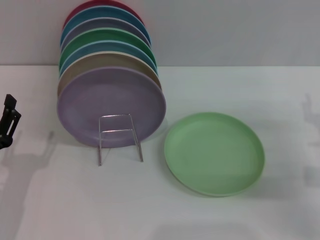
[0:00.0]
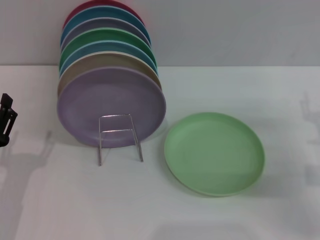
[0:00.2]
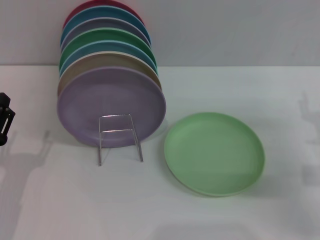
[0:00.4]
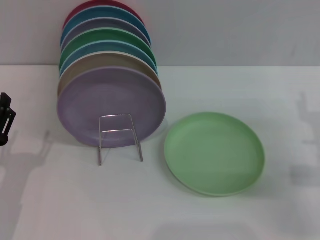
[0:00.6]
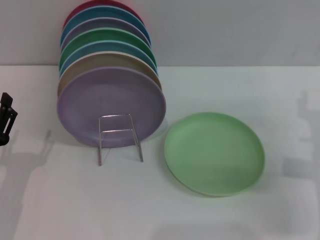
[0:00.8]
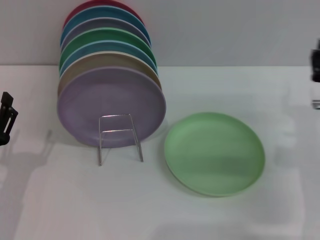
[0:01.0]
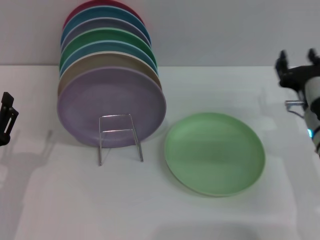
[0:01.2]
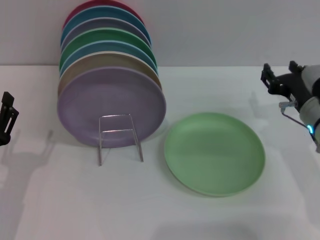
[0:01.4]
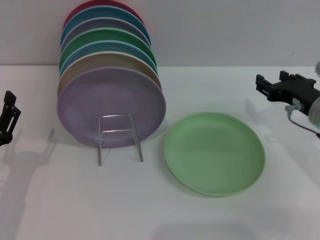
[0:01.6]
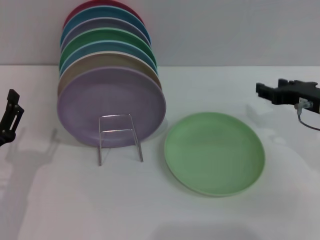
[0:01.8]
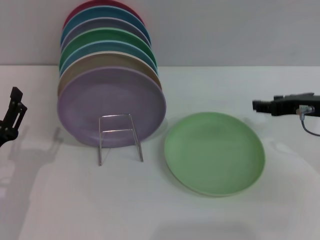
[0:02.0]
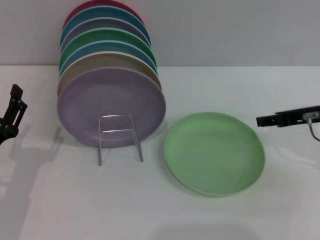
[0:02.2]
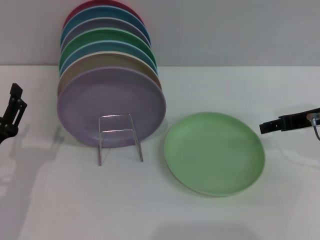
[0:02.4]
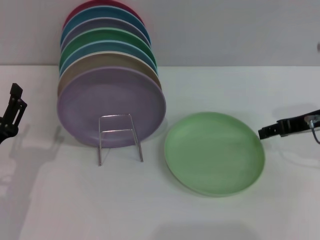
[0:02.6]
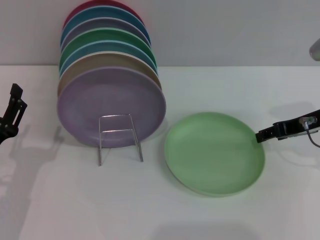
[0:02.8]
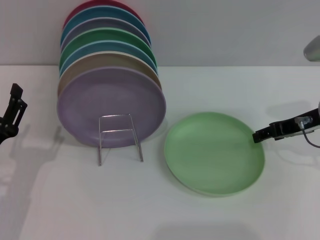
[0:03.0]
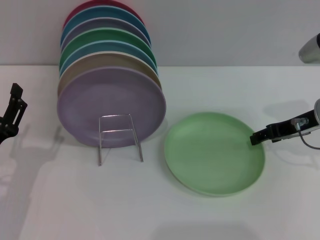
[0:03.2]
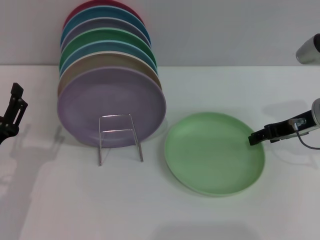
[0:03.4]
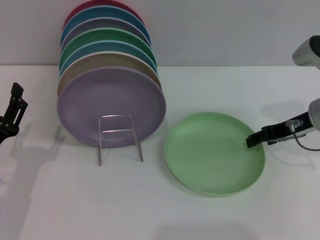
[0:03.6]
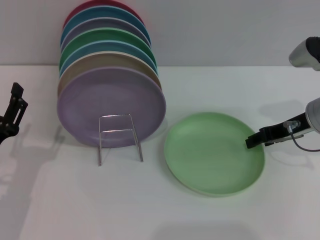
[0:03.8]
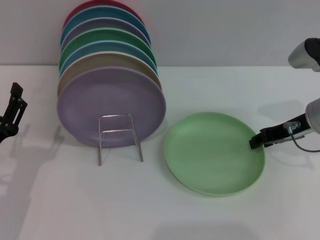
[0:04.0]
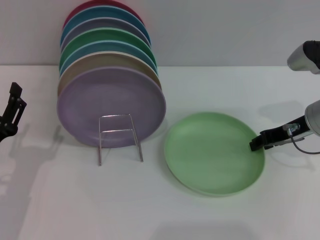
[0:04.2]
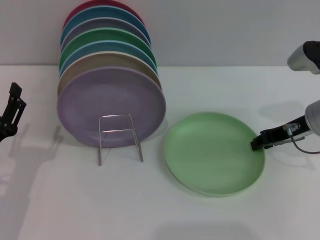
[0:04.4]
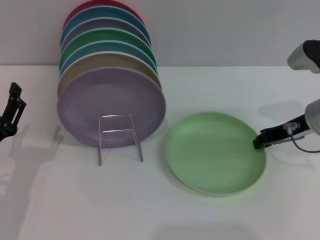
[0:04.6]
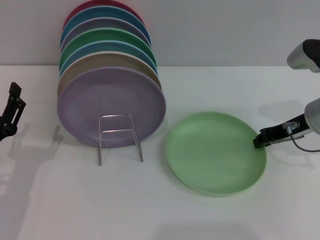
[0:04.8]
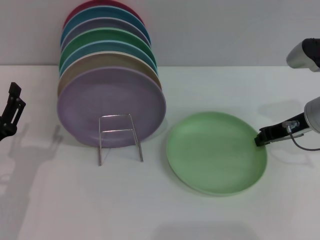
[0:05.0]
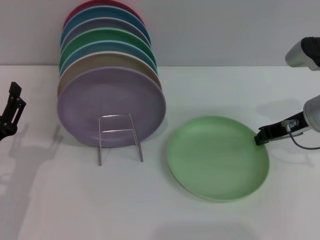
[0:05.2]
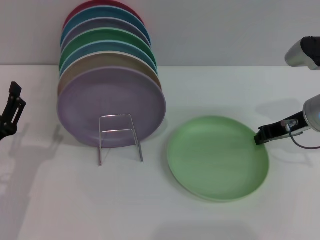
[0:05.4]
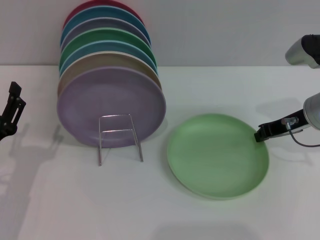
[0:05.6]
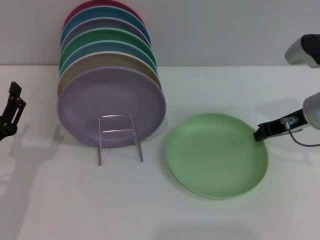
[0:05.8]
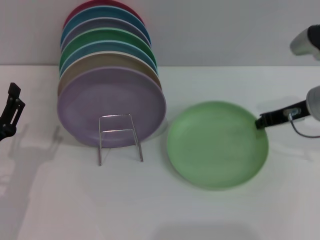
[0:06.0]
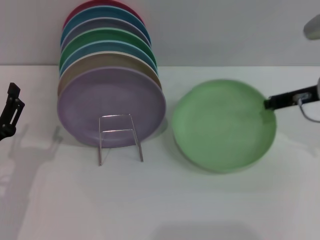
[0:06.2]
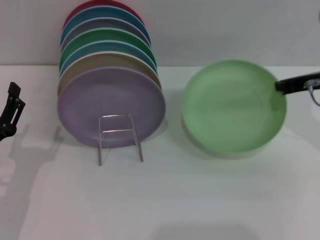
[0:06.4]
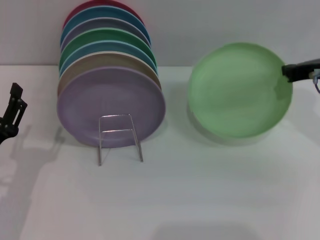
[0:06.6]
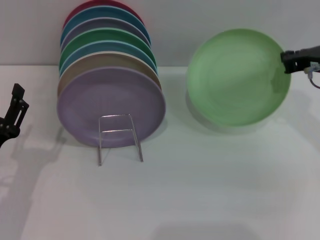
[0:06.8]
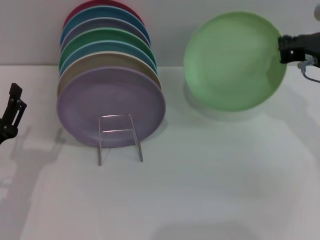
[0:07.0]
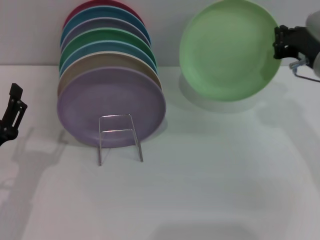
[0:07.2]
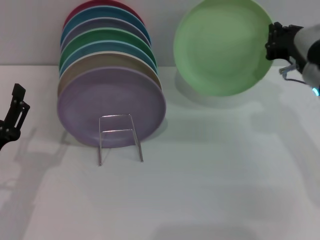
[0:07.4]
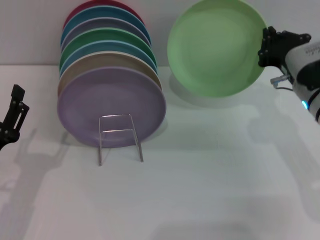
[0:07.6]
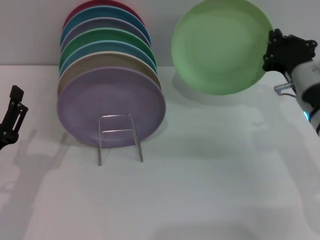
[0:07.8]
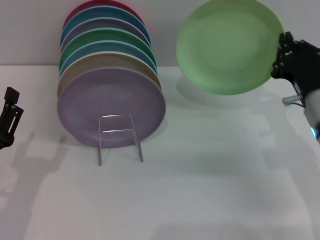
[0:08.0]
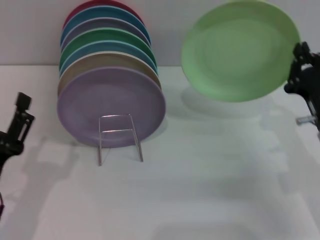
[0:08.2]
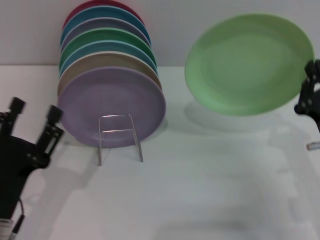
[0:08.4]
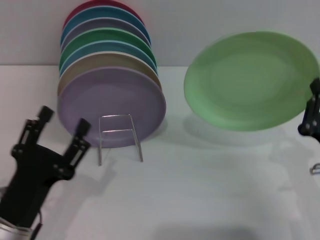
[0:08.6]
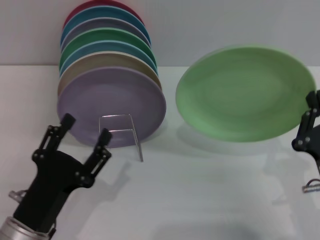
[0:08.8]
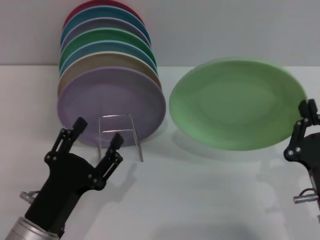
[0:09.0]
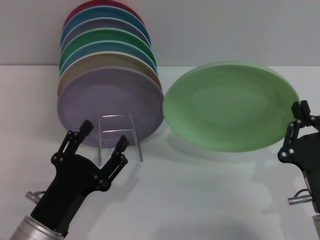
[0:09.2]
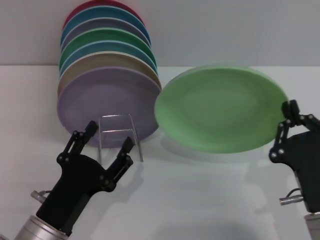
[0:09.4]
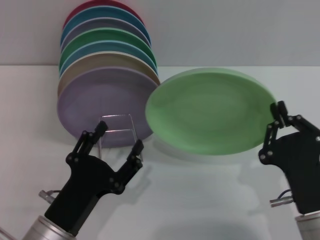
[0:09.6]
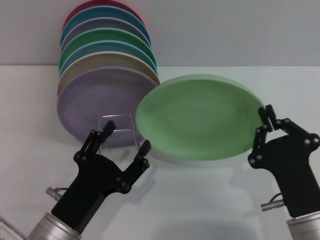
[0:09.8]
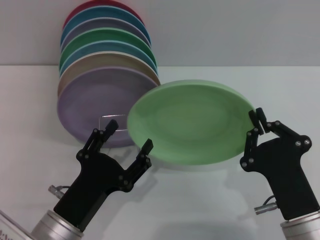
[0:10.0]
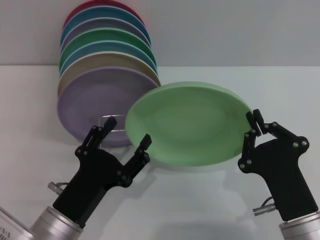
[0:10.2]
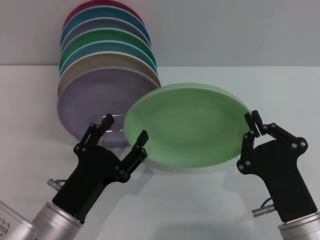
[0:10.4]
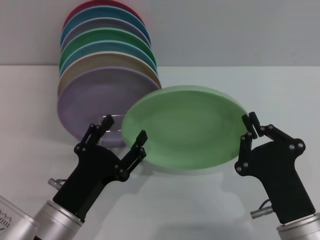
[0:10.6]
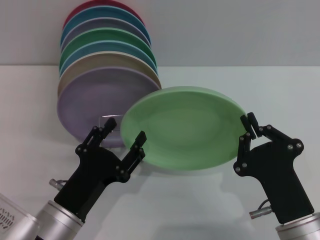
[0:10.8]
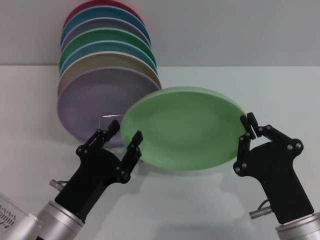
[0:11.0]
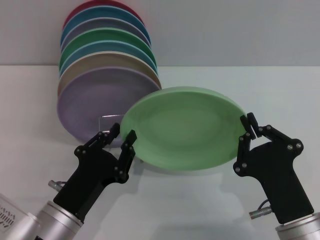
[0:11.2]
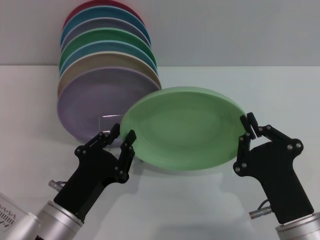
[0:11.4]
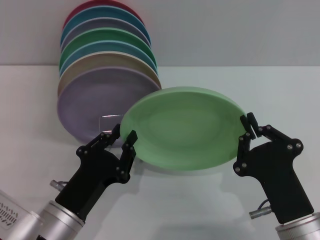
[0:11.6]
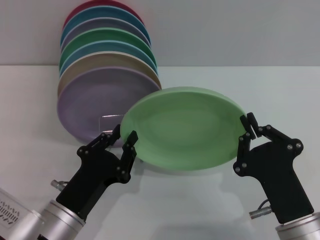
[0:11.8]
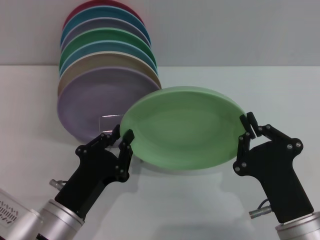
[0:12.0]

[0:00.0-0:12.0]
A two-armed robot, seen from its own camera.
Task of the whole recording: Grip the plate with one hand, pass it to the other, then set it on the shelf.
Step, 0:00.0 to 0:06.2: Pick up the plate with the right gripper.
0:00.0 to 0:01.6: The right gripper shifts by approximately 10 cm.
0:03.0 to 0:04.4: The grippers make only small movements.
0:04.4 to 0:06.0: The right gripper closes up.
0:07.6 to 0:09.0: The right gripper moves backward, roughly 20 cm. The left gripper shifts roughly 5 cm to the right.
0:10.4 to 0:12.0: The left gripper closes its fingers.

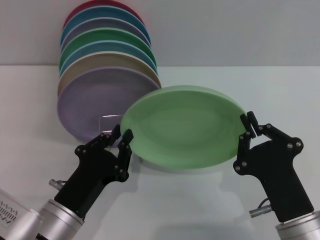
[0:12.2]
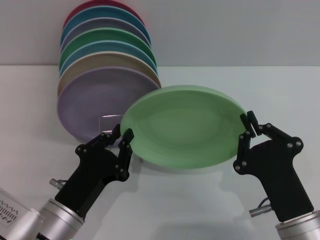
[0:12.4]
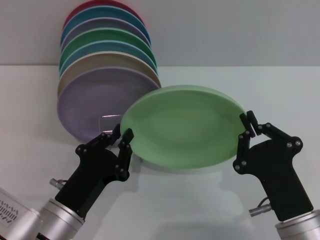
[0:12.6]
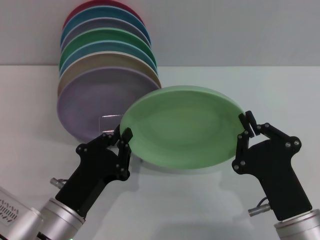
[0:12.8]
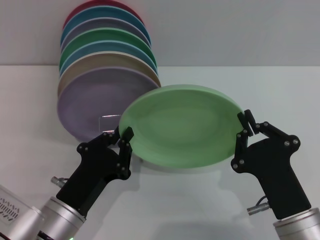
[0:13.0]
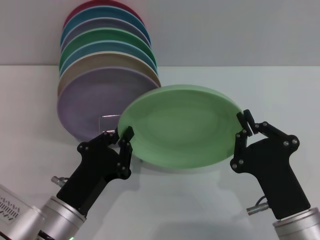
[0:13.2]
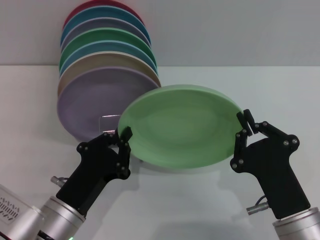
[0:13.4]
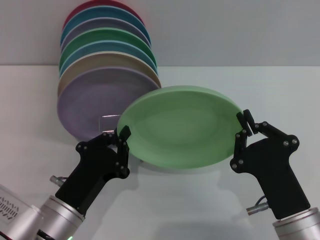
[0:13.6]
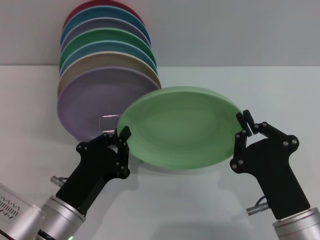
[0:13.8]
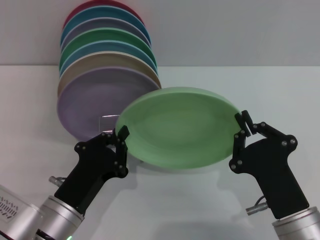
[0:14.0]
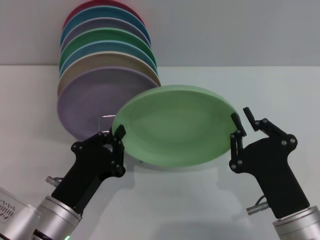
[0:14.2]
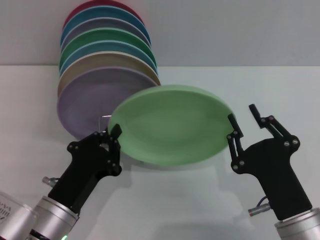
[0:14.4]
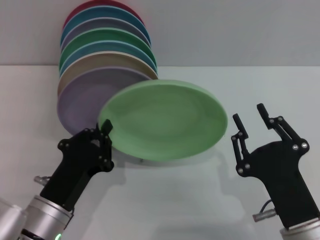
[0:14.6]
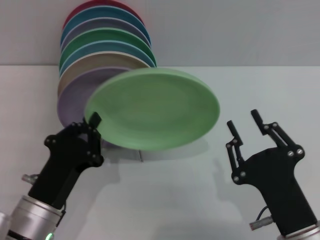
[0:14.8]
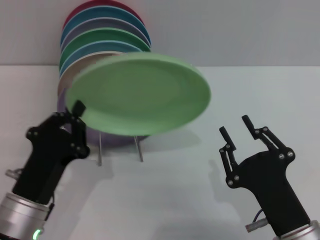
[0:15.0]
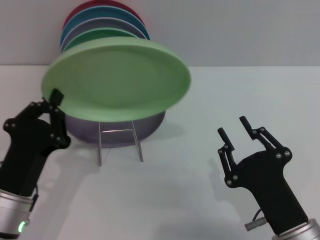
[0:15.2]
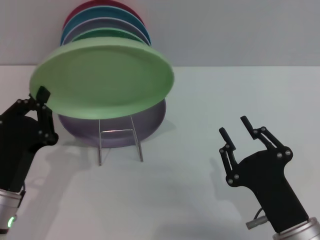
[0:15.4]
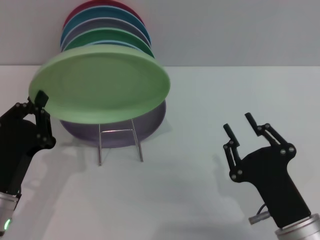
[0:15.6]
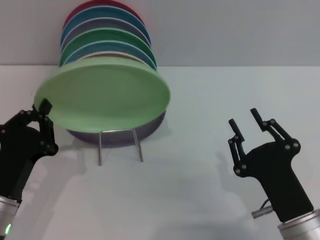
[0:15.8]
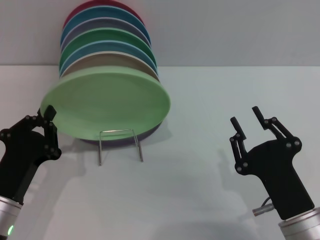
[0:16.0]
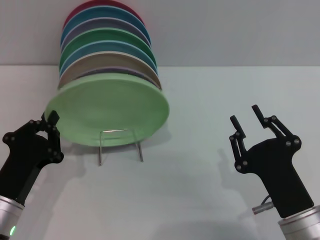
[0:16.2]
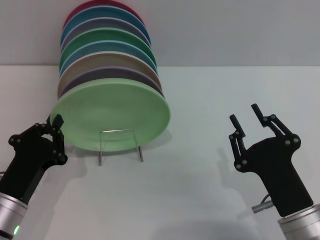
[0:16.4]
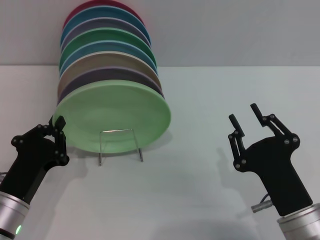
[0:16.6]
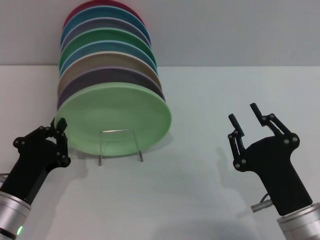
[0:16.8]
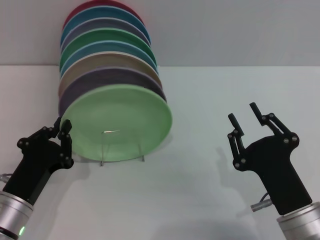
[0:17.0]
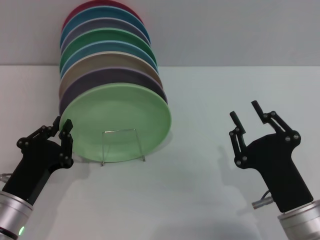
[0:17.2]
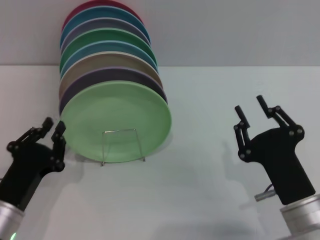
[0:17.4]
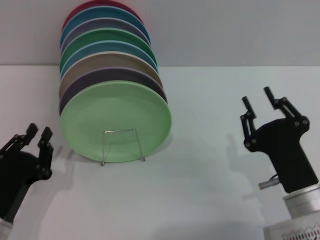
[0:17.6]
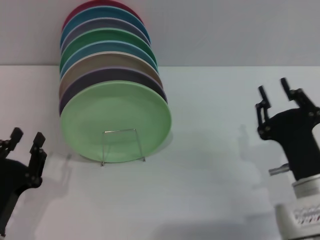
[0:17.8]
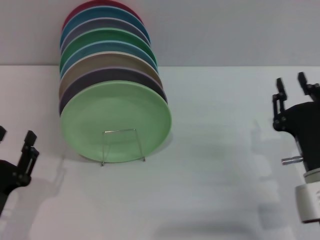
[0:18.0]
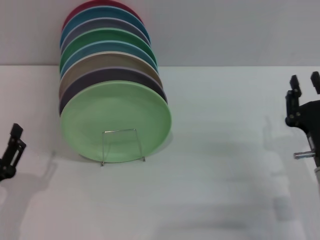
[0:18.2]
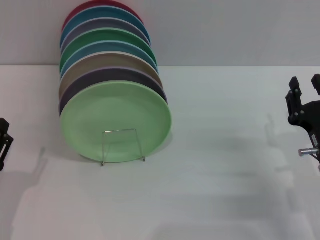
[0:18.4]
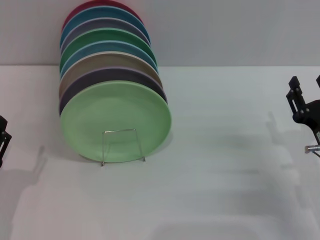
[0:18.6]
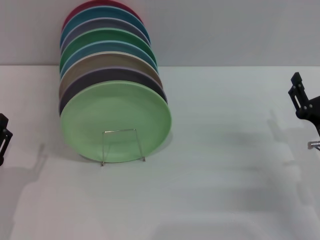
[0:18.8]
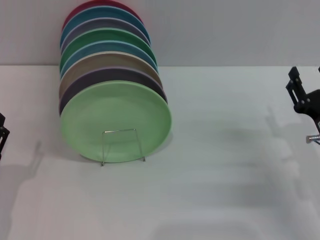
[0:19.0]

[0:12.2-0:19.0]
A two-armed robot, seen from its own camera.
Task of the whole recording: Grip the plate with one hand, pass it to the other, then set it on the shelf.
Step, 0:12.2 to 0:14.8: Pass the plate from the right gripper to the left gripper.
Step, 0:15.0 to 0:17.8: Place the plate on the shelf with the left gripper.
0:12.2 to 0:13.6: Both grippers stay put.
0:13.6 to 0:15.0: The right gripper opens.
0:16.2 to 0:17.6: The grippers stay close to where they were, moving slightly.
0:17.6 to 0:19.0: The right gripper heads to the right and forward, covering some 10 cm, and opens, while the left gripper opens.

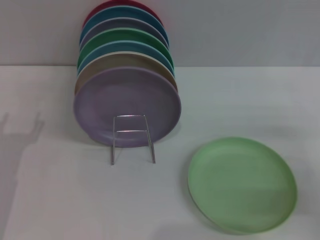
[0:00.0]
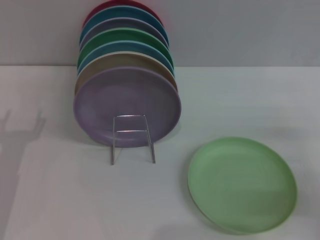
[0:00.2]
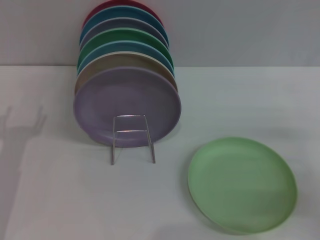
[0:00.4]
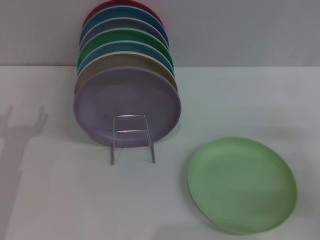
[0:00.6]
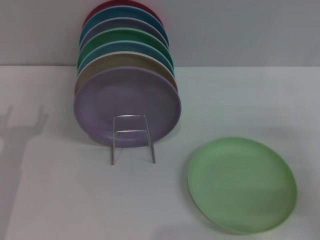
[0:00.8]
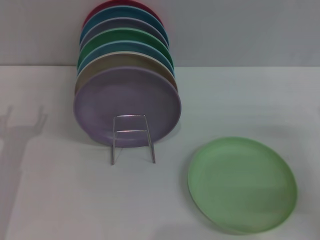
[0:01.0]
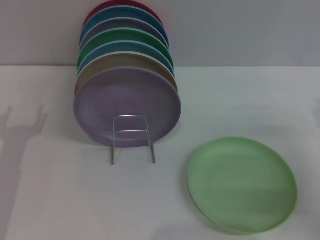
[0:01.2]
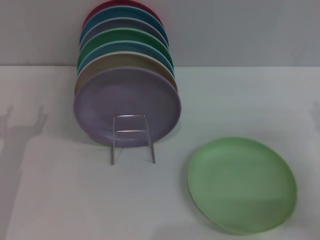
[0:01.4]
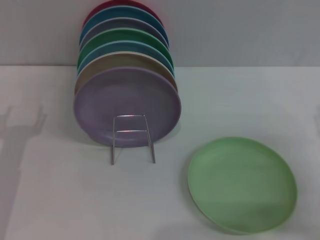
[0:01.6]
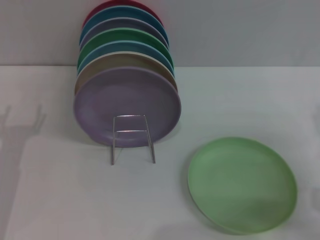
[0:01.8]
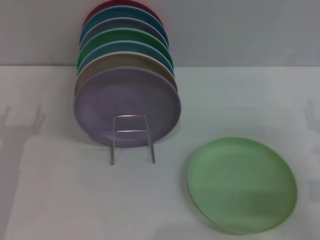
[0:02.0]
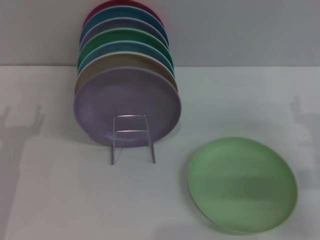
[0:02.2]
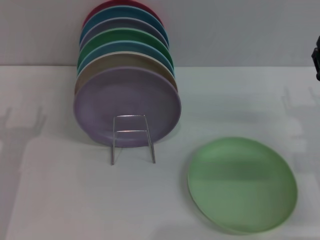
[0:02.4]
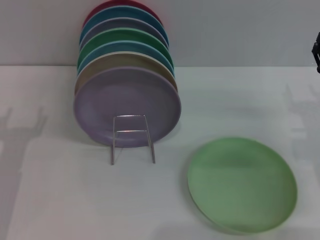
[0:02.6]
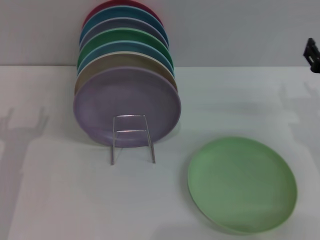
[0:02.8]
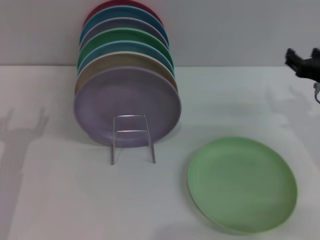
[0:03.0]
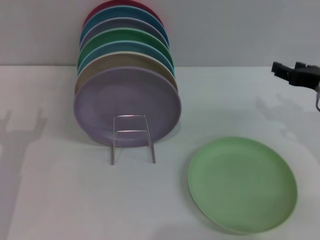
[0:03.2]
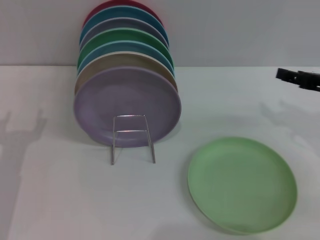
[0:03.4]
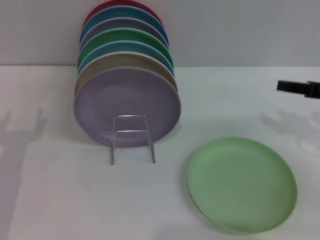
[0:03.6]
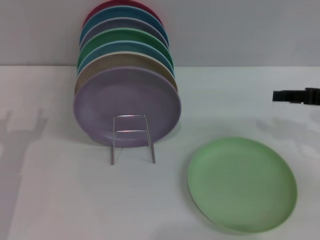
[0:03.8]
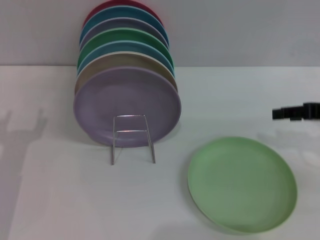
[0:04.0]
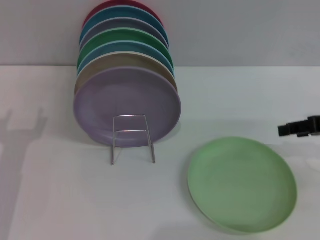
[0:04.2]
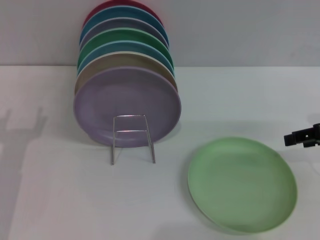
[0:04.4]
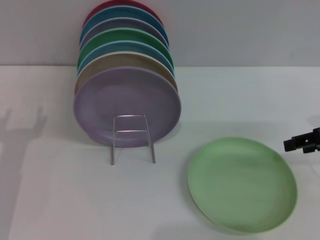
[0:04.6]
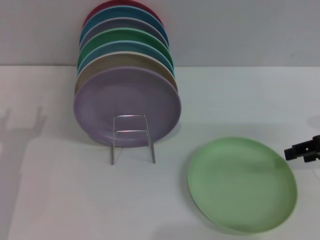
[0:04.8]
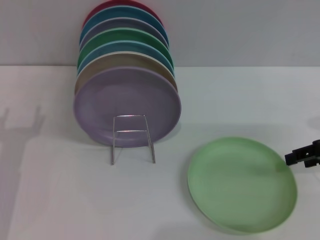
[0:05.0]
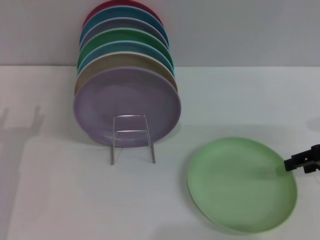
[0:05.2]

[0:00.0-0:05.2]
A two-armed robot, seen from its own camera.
Task of the whole recording: Grip the plate with one hand, pass it to the other, then set it on the shelf.
0:01.8 to 0:03.4: The right gripper goes about 10 cm upward and forward.
